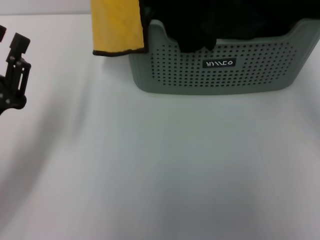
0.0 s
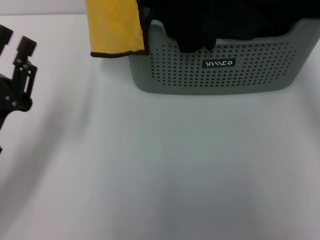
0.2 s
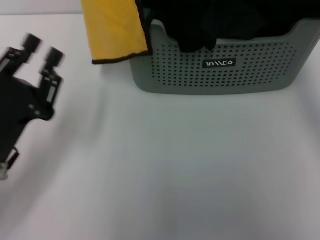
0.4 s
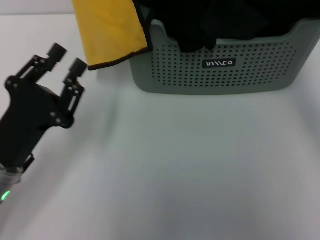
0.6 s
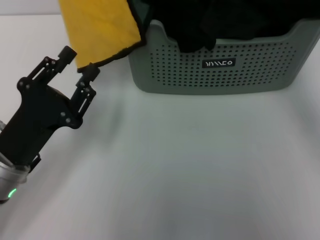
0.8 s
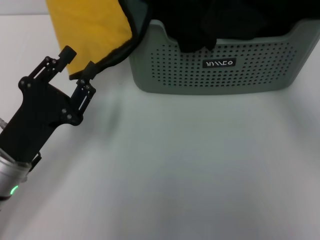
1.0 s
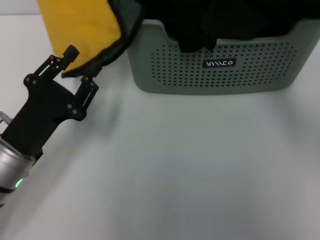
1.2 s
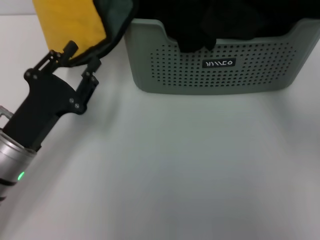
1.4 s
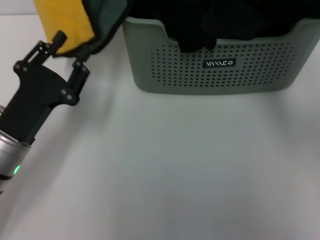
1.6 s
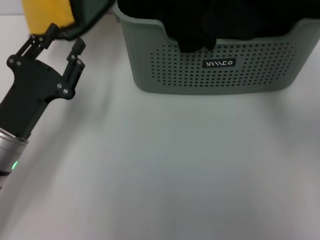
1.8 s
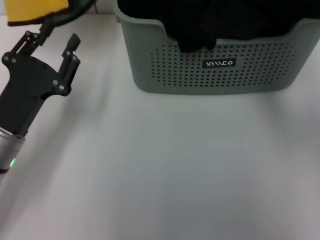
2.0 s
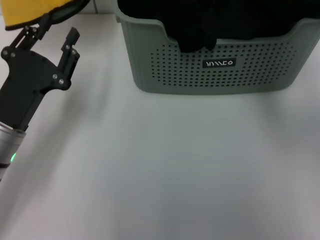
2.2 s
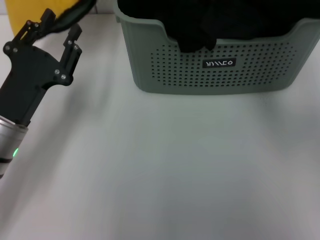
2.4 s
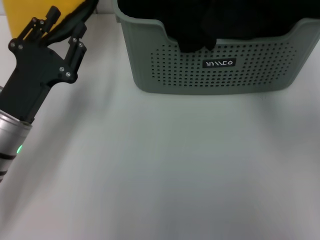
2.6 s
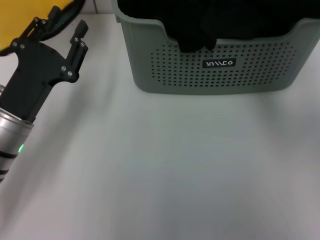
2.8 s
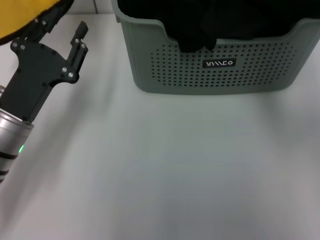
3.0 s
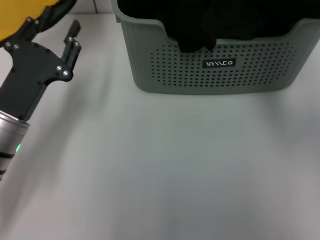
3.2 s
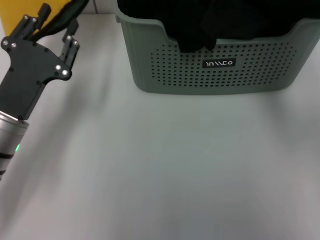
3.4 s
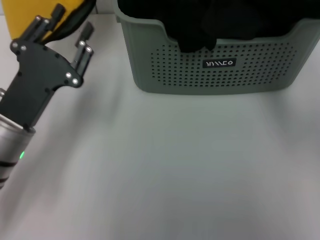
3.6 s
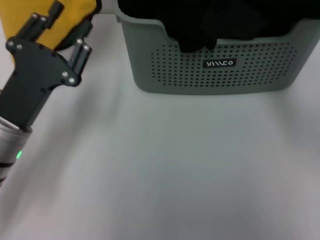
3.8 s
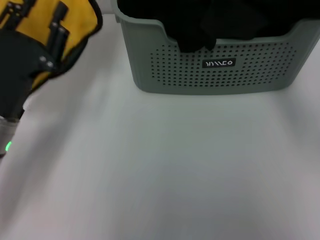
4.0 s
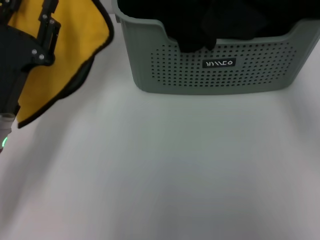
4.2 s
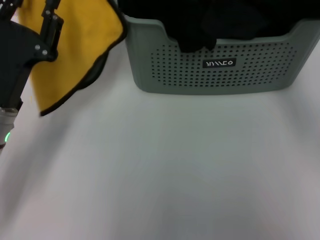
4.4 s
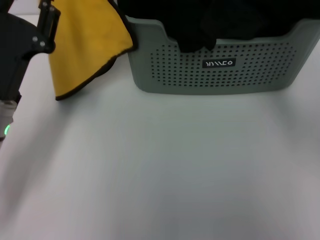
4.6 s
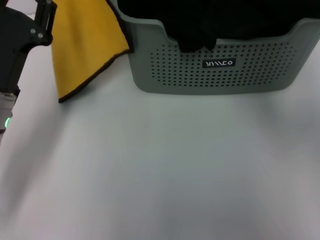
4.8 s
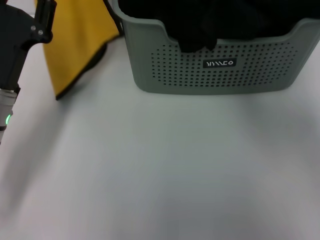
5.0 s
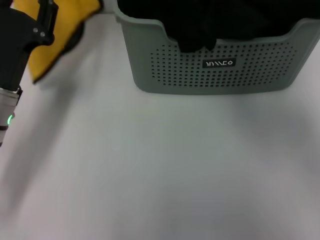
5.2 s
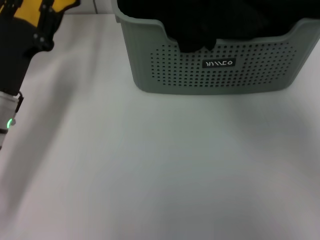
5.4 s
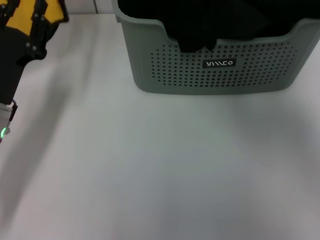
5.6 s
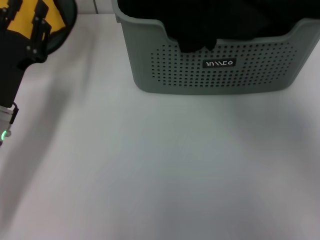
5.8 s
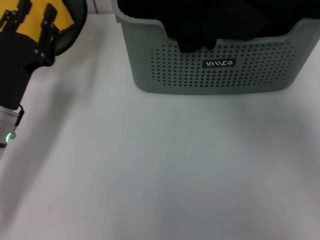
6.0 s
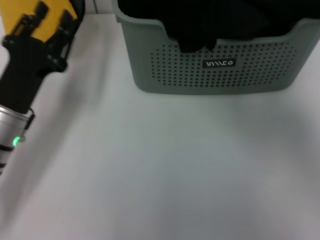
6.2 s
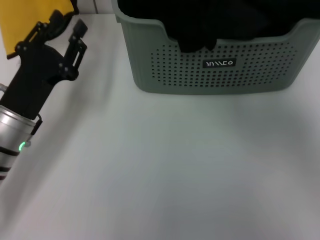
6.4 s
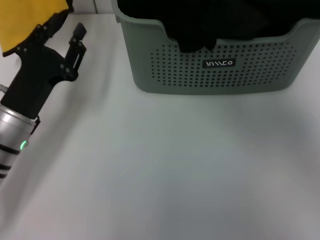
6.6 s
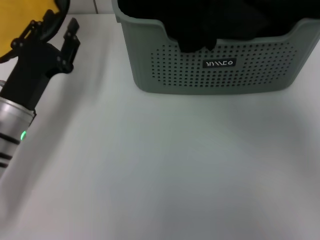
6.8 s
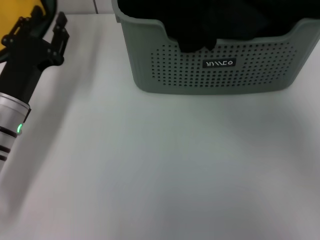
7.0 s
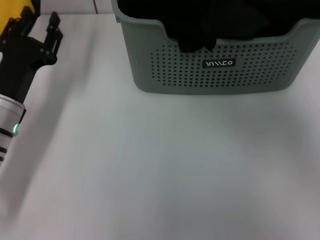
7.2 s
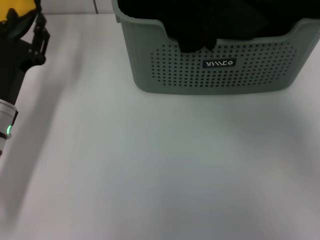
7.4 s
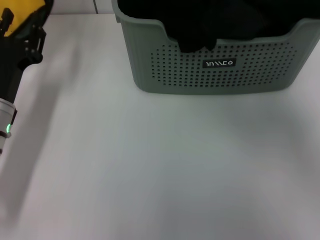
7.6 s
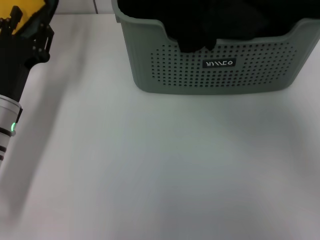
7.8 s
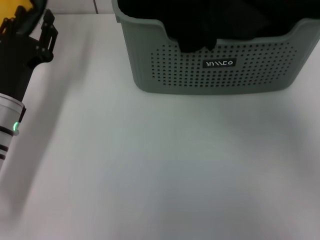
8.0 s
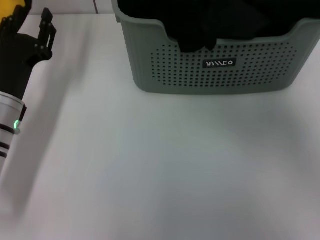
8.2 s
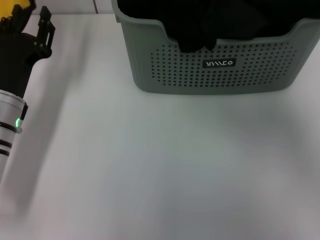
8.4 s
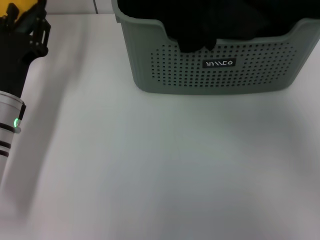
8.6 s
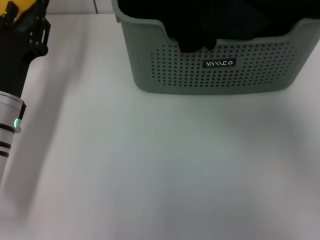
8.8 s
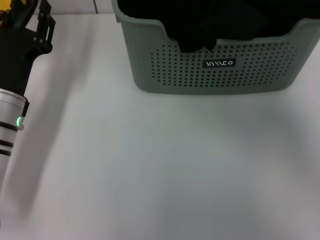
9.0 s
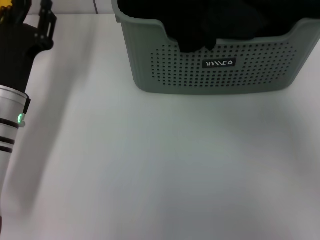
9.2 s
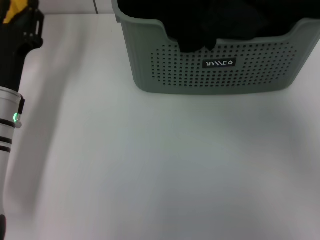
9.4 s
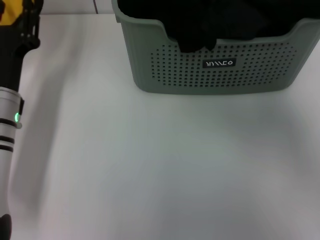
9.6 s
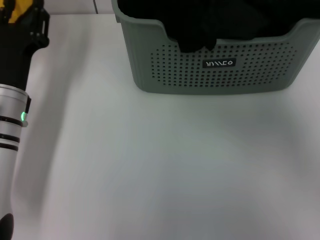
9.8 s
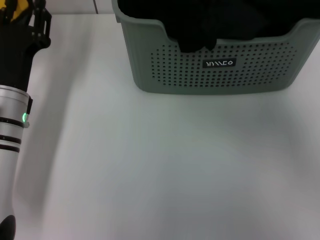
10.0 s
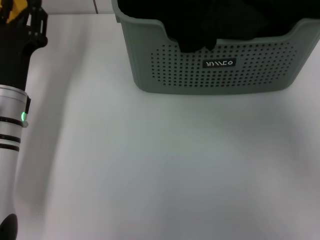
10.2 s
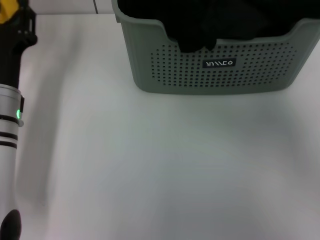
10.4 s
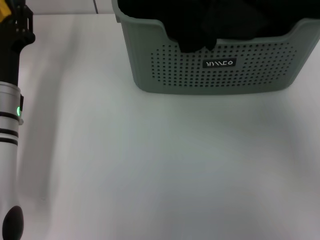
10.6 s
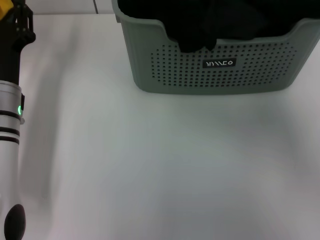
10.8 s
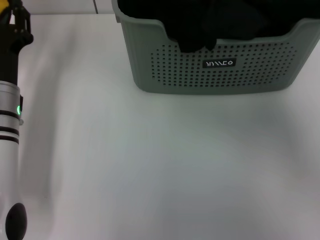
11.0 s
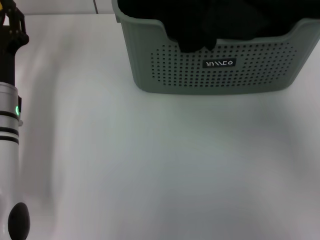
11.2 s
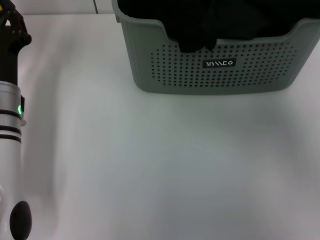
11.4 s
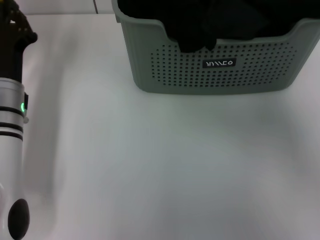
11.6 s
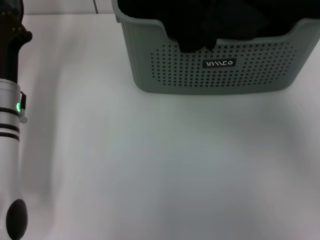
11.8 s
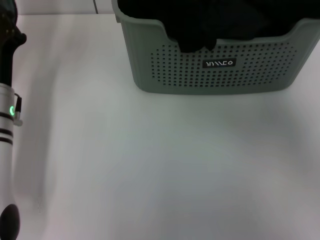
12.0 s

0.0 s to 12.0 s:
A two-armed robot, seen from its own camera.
Task of the whole recording: pick up the towel from the storage box and lay it flat on the table.
0.0 to 1.6 s: The right gripper shifts approximately 10 cm to the left and forward.
3.0 to 4.4 s: The right gripper heads to the right, covering approximately 5 cm.
4.4 to 6.0 s: The right gripper is displaced to the left by approximately 15 cm.
6.0 to 9.0 s: There are only small adjustments of the grippers.
9.0 to 10.4 s: The grippers stay close to where they were, moving slightly.
10.4 to 12.0 s: The left gripper closes.

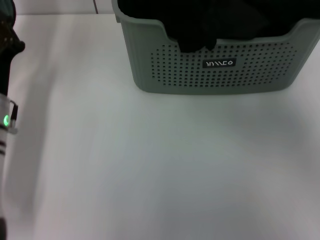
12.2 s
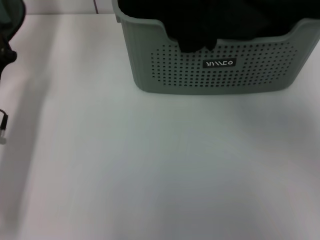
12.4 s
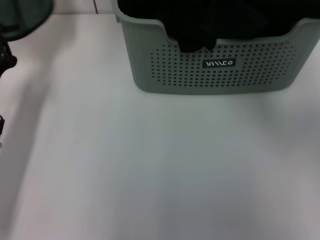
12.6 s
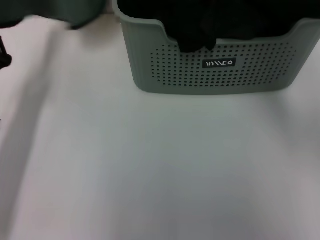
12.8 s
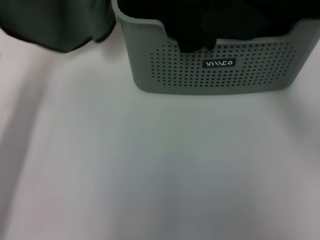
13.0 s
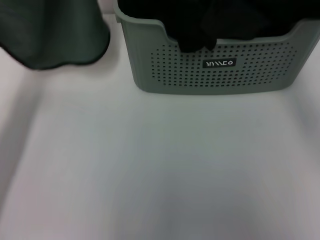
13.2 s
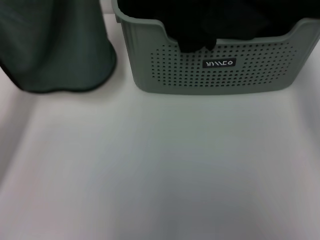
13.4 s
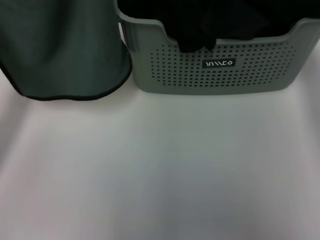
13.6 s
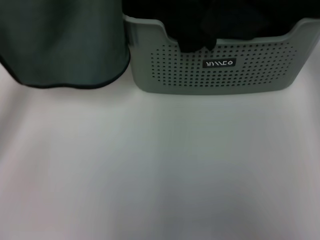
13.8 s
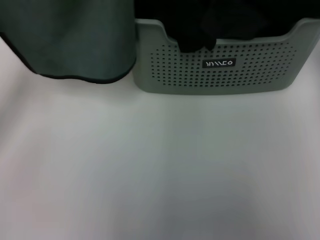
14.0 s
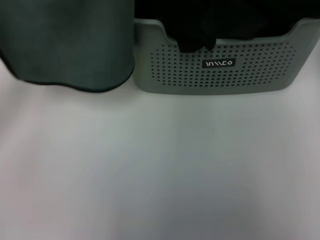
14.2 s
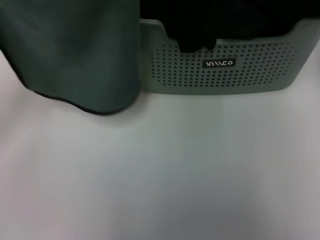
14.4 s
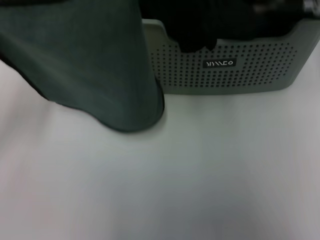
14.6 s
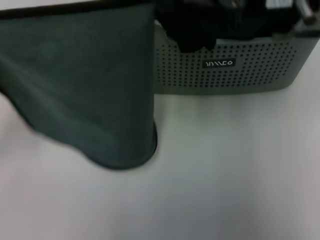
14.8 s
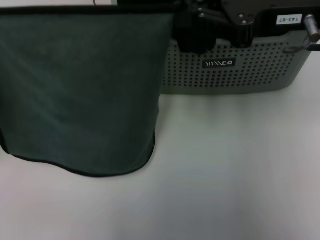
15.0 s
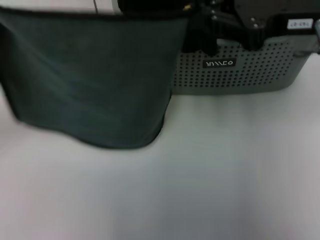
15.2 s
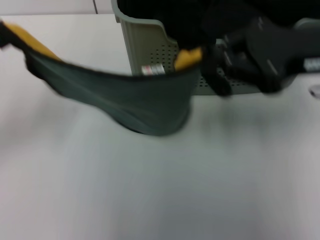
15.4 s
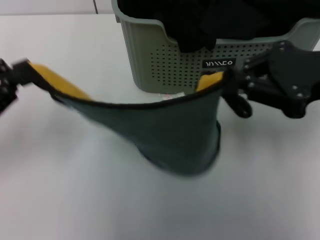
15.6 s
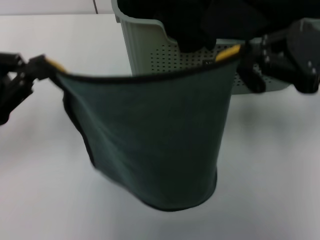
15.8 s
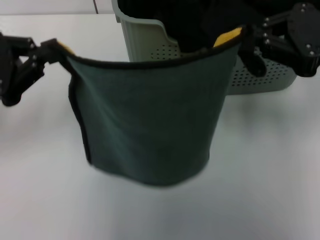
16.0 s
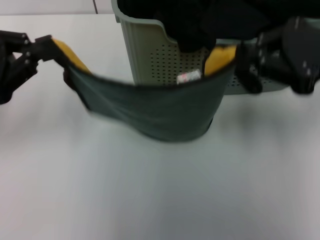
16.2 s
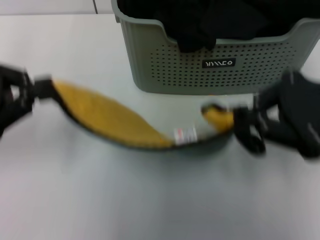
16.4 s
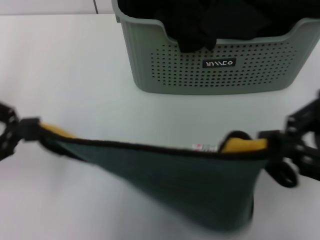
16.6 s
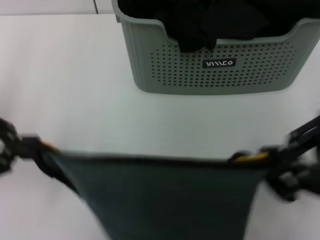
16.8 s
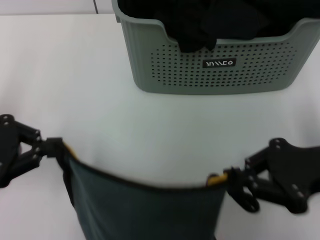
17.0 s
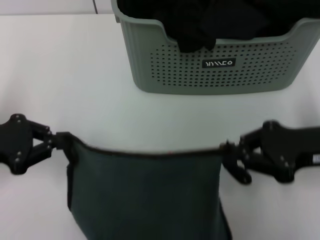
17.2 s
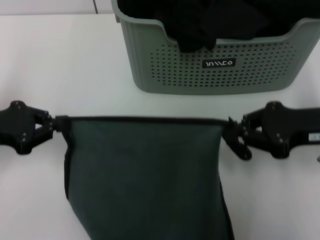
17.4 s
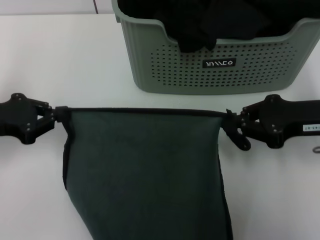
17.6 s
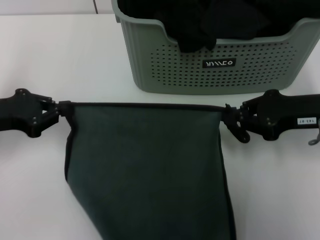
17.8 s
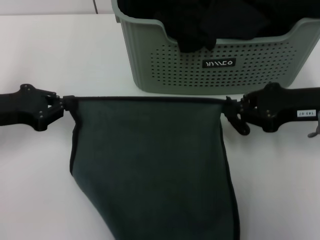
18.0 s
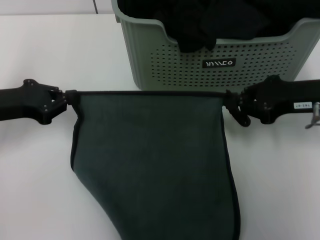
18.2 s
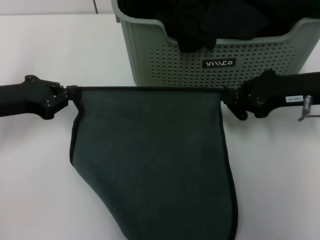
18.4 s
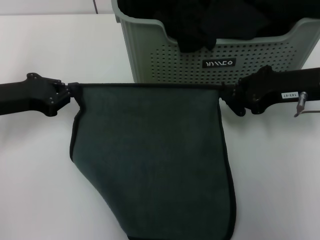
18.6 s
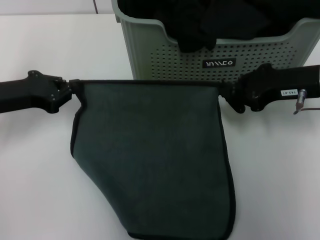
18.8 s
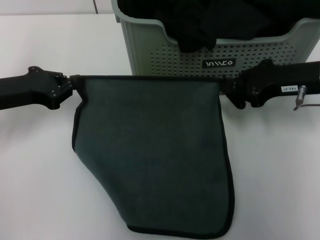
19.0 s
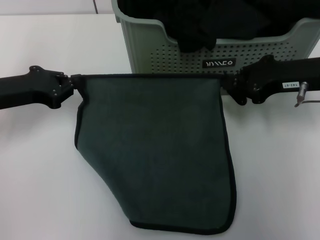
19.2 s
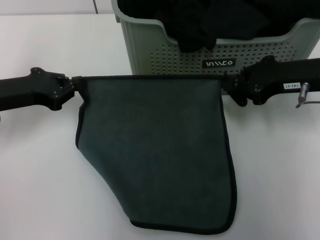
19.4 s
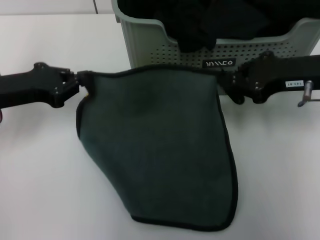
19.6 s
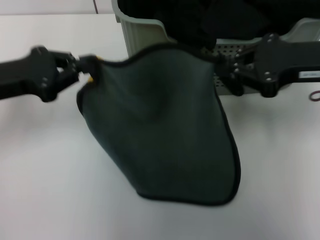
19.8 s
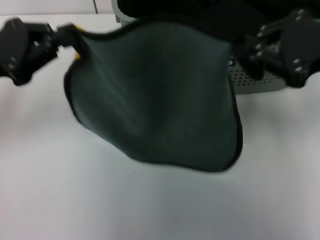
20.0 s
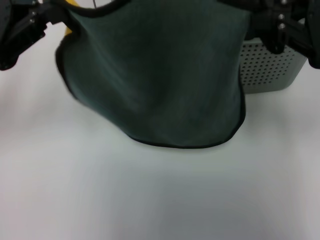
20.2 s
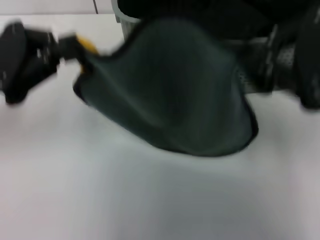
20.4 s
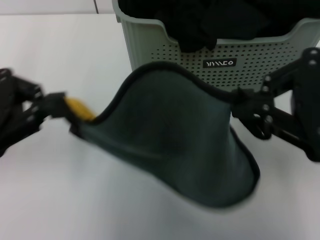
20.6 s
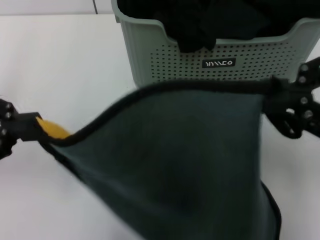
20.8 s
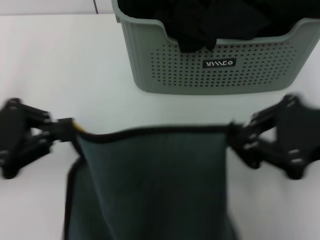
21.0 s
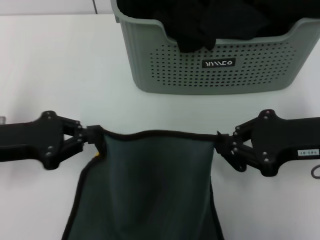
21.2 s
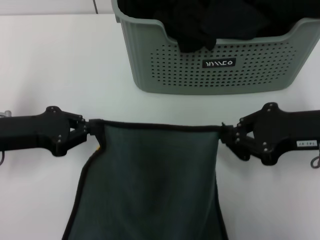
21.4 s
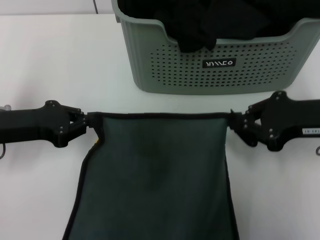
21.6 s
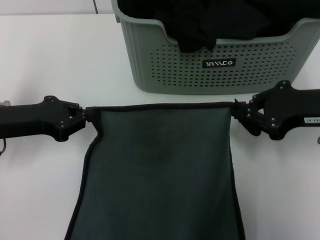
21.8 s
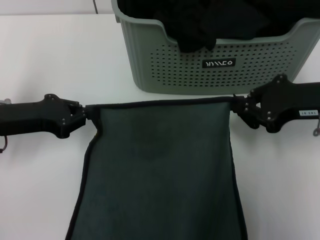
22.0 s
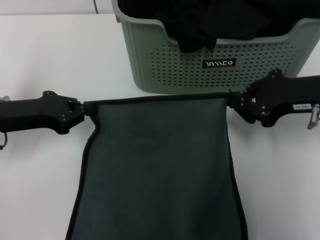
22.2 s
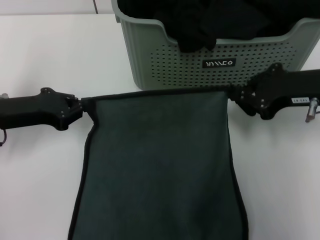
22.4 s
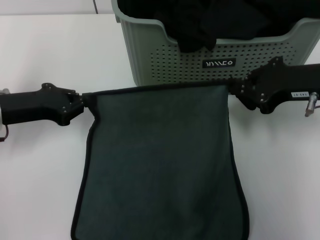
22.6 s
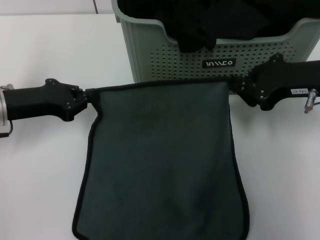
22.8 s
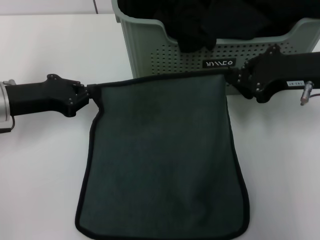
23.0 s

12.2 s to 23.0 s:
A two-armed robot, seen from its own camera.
Task of the whole recording: pick up the towel from the storage box and lay it flat on the table.
12.2 to 13.8 s: The left gripper travels upward and to the left by some 10 cm. The right gripper travels to the right by roughly 25 cm.
13.8 to 15.2 s: The left gripper ends up approximately 5 cm from where it was, while the right gripper is displaced downward, to the right and backward by approximately 15 cm.
15.2 to 16.8 s: The right gripper goes about 15 cm backward and to the right.
16.8 to 18.4 s: Both grippers travel together forward and downward, some 15 cm.
18.4 to 20.0 s: The right gripper travels upward and backward by some 10 cm; the left gripper goes some 5 cm upward.
20.0 to 21.4 s: Both grippers travel together downward, about 10 cm.
21.4 to 23.0 s: The right gripper travels forward by some 5 cm.
